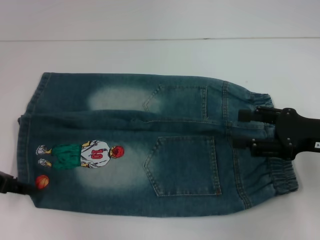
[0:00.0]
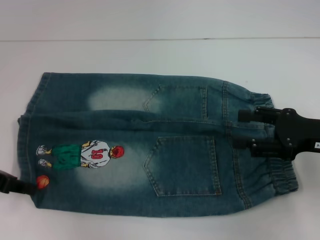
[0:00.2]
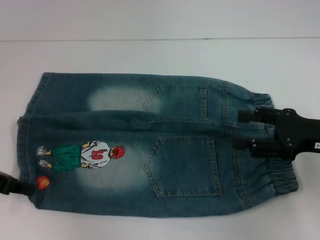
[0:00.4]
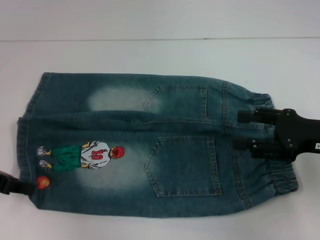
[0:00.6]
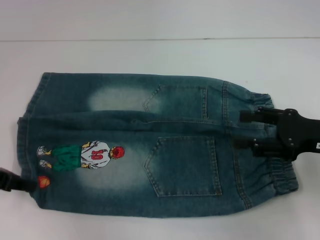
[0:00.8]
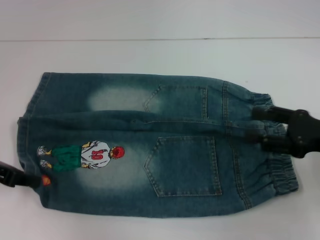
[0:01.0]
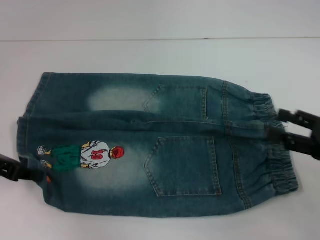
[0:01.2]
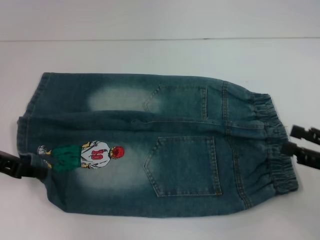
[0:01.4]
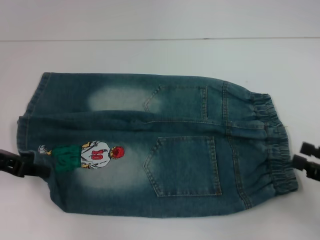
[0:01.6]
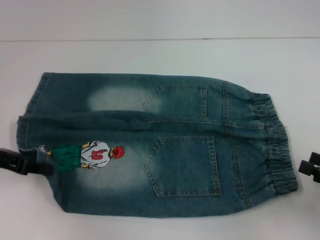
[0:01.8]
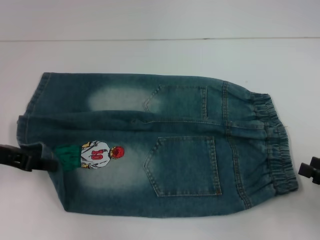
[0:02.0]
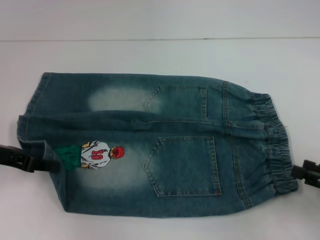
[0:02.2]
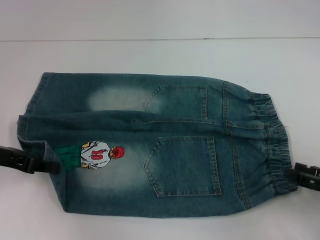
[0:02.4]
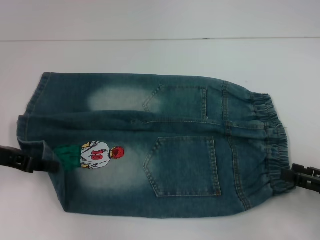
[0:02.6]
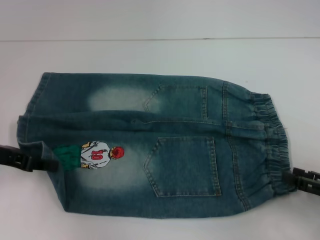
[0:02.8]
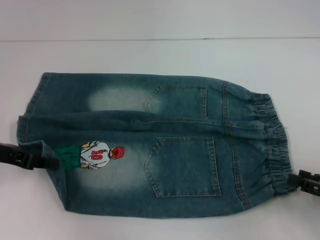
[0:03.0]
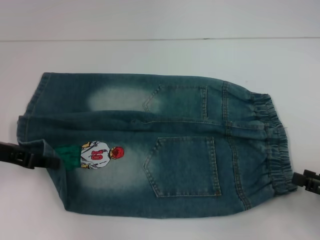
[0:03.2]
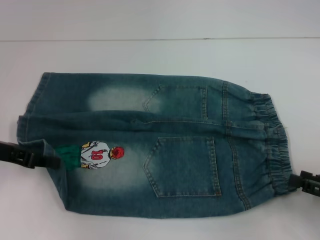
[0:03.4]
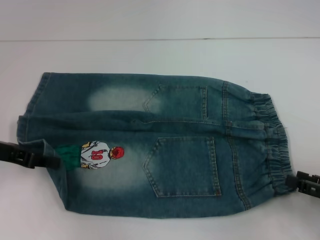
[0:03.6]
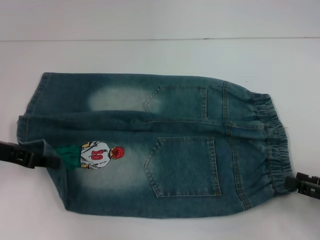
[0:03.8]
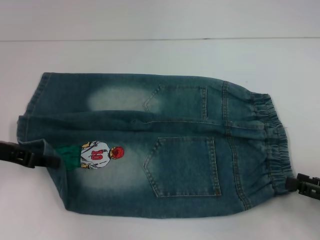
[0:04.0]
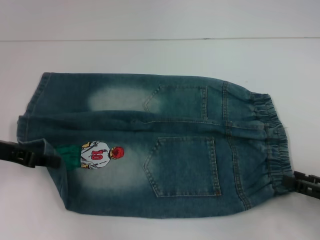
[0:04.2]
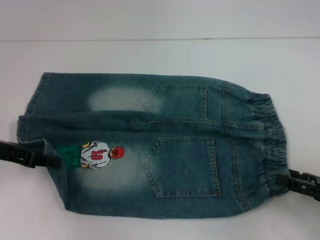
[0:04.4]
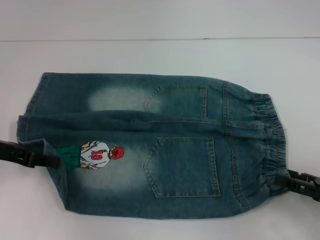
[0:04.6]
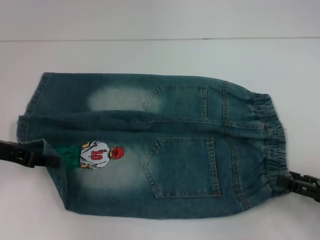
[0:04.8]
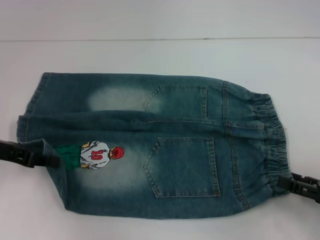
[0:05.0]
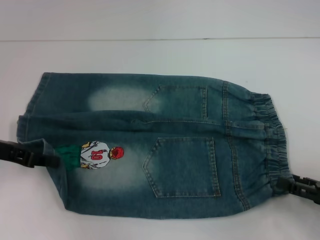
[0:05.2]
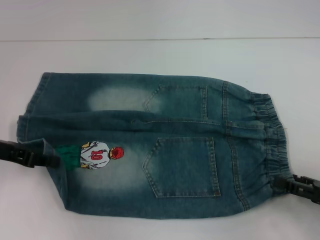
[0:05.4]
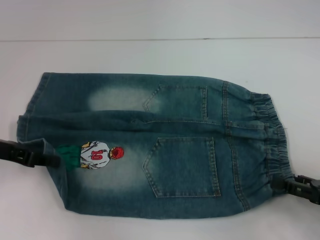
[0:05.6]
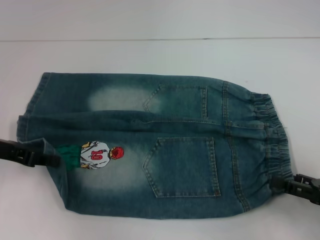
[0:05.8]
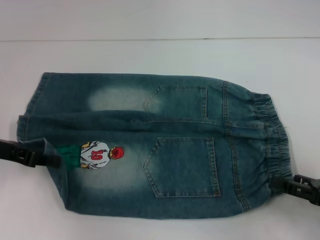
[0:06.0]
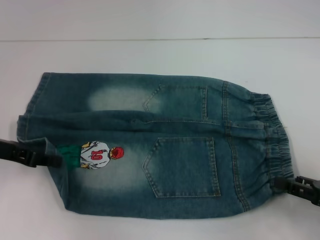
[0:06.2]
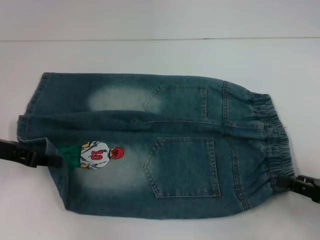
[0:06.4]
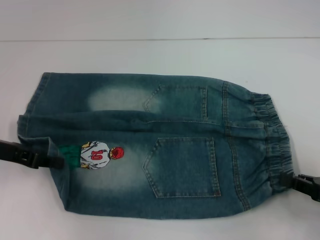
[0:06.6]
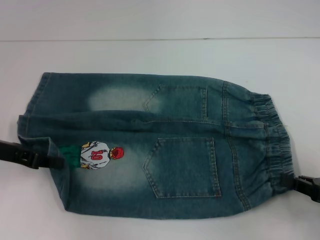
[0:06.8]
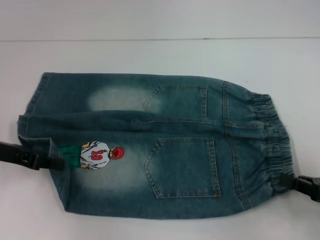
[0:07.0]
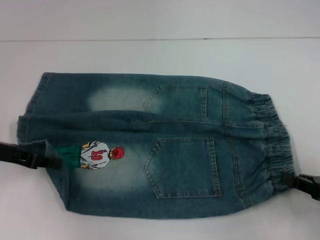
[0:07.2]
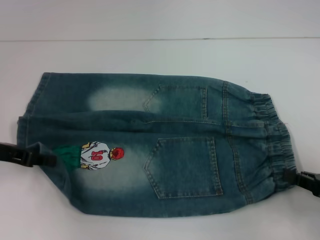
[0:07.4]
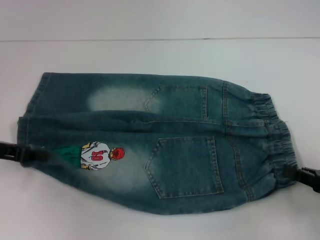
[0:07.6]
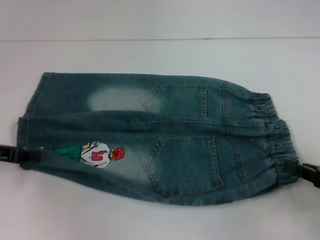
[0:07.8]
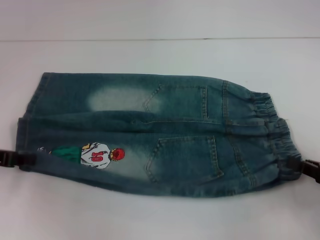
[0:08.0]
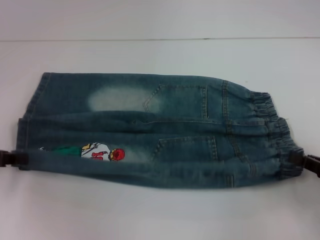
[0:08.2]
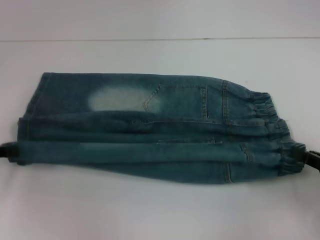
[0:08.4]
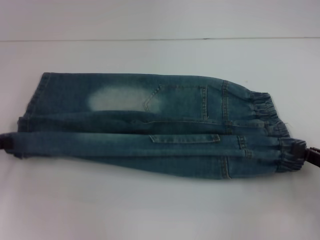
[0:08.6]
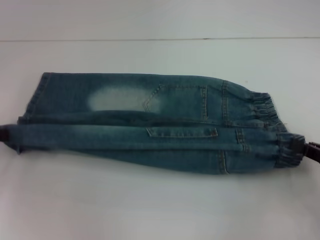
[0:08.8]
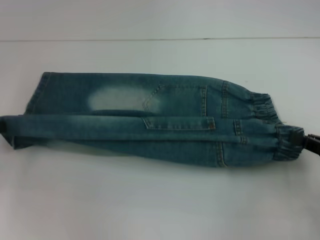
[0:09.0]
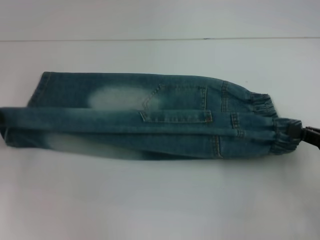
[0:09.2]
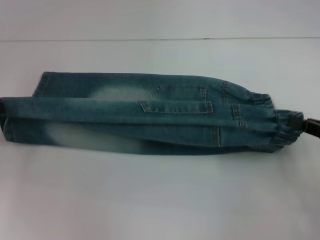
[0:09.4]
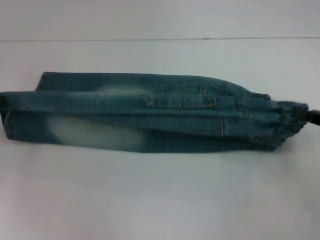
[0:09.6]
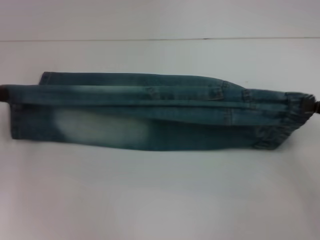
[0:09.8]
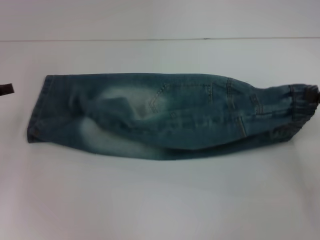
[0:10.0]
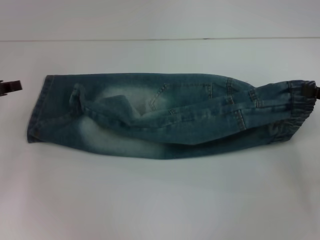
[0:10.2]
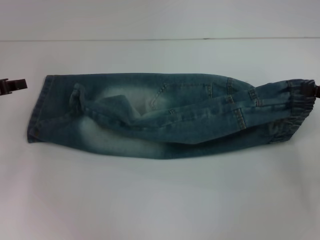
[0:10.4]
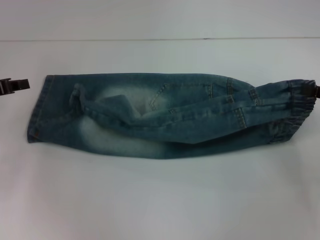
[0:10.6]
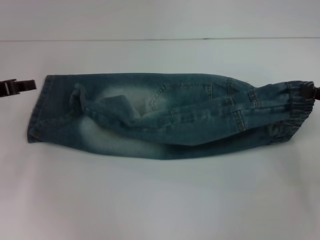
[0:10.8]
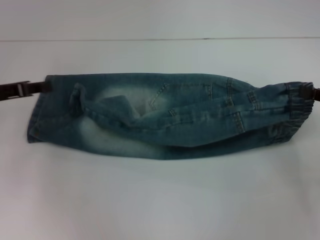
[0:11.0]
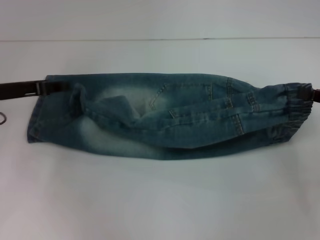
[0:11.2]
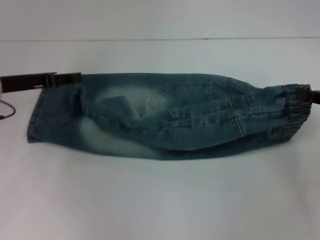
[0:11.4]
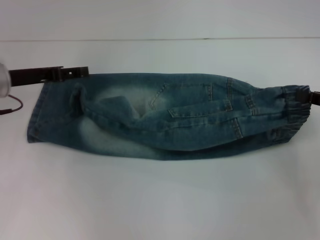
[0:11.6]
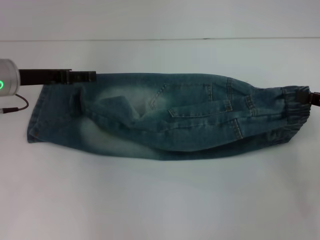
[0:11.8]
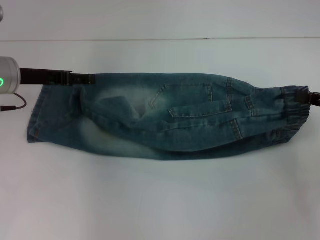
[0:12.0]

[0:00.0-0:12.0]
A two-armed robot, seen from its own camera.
Step, 0:00.0 to 0:07.4: Hold the lower right waistband with your right hand.
0:00.0 to 0:01.6: The left gripper closes. Meanwhile the right gripper moves backward and to the right, roughly 10 cm.
0:01.6 to 0:03.0: The grippers stay close to where they were, moving slightly.
0:03.0 to 0:04.4: Both grippers stay about where they are.
0:04.4 to 0:06.0: Neither gripper changes place.
0:06.0 to 0:07.6: The right gripper closes up.
0:07.6 to 0:09.0: The left gripper heads to the left, covering about 5 cm.
0:09.0 to 0:10.4: The grippers both shift forward by approximately 5 cm.
0:10.4 to 0:12.0: The left gripper goes approximately 10 cm to the right, and opens.

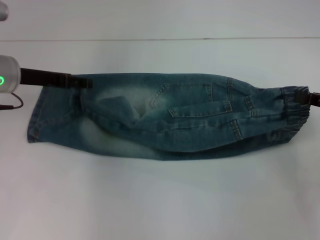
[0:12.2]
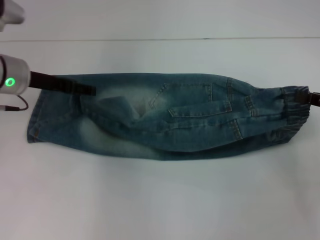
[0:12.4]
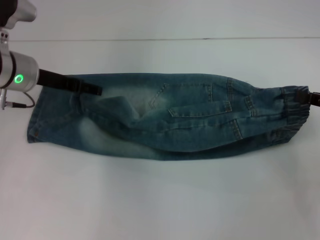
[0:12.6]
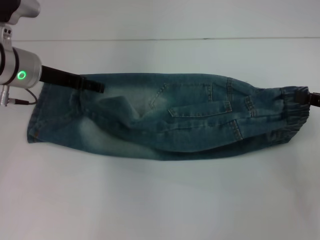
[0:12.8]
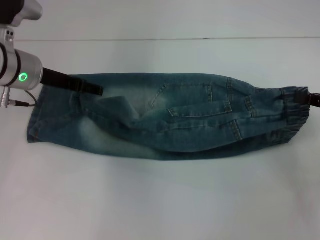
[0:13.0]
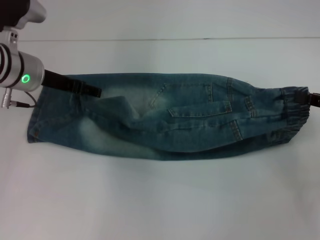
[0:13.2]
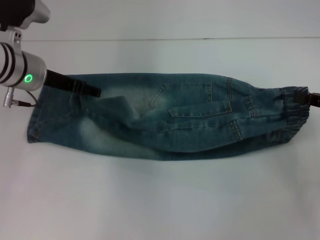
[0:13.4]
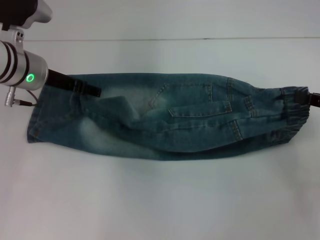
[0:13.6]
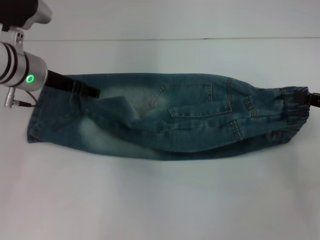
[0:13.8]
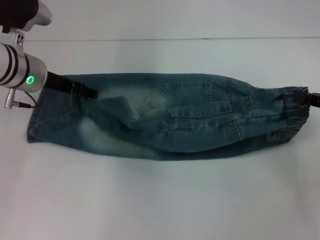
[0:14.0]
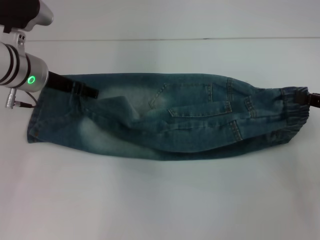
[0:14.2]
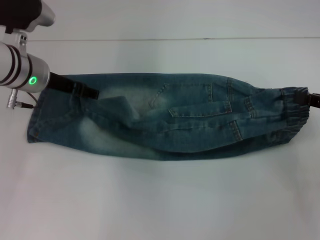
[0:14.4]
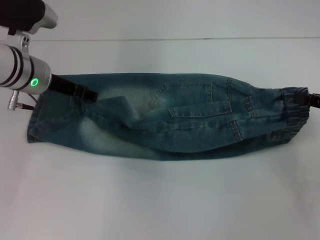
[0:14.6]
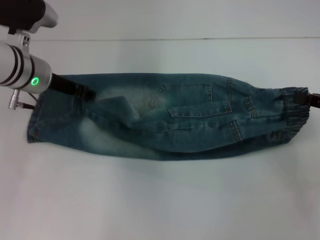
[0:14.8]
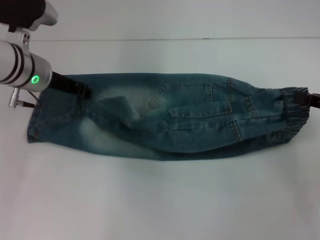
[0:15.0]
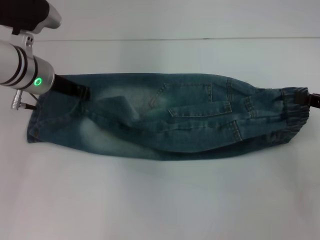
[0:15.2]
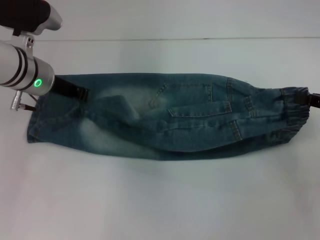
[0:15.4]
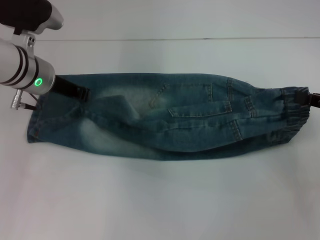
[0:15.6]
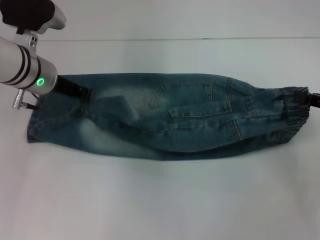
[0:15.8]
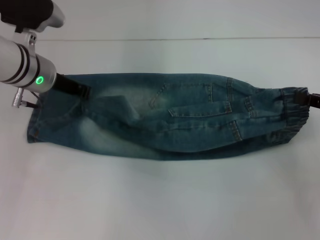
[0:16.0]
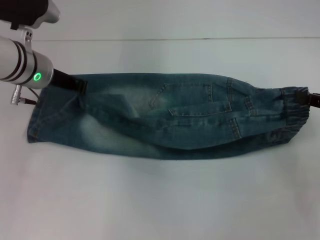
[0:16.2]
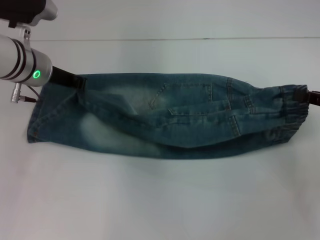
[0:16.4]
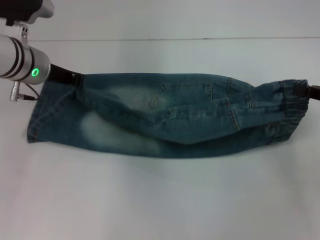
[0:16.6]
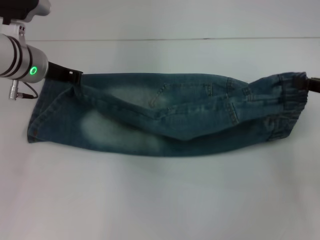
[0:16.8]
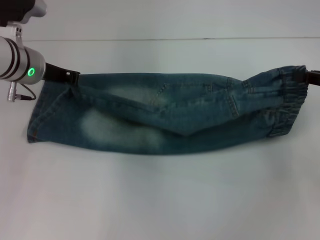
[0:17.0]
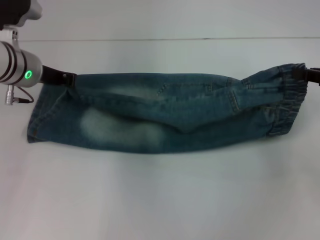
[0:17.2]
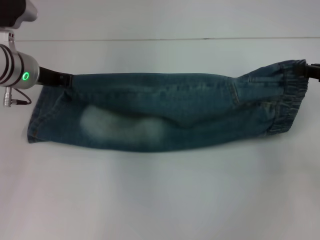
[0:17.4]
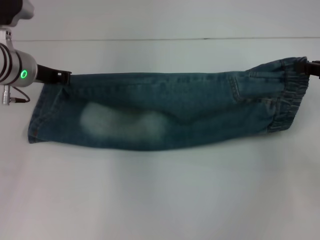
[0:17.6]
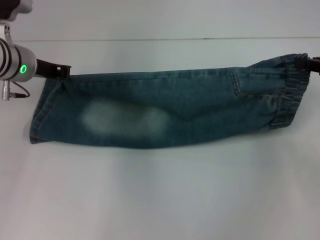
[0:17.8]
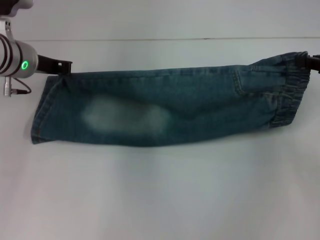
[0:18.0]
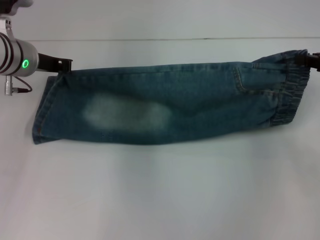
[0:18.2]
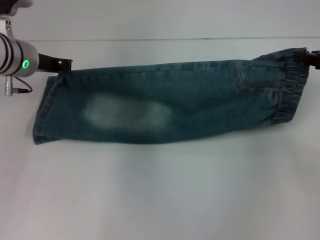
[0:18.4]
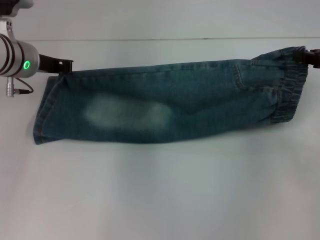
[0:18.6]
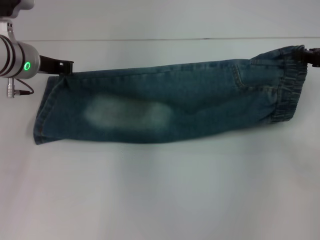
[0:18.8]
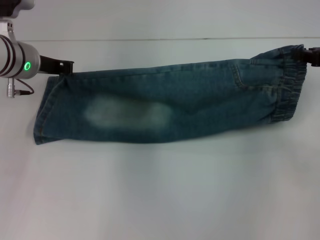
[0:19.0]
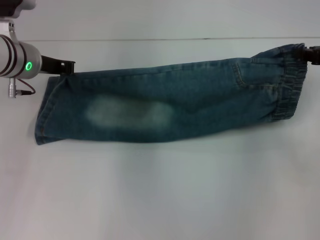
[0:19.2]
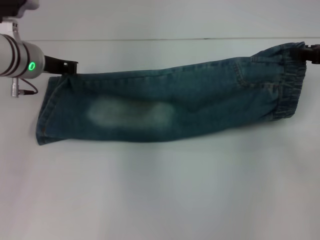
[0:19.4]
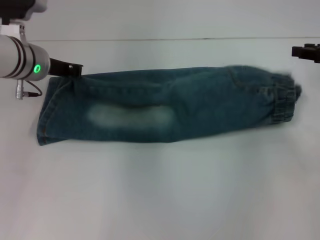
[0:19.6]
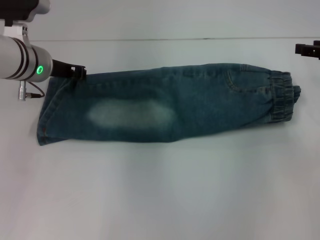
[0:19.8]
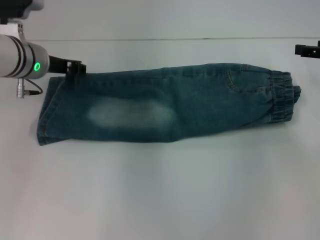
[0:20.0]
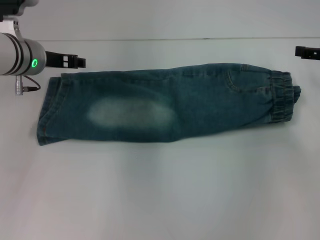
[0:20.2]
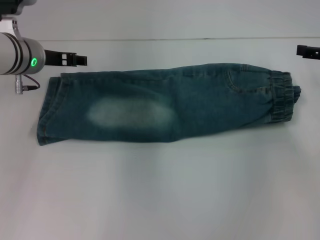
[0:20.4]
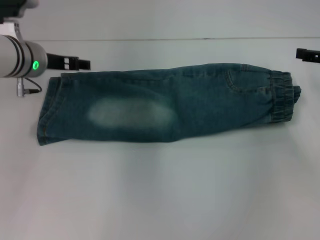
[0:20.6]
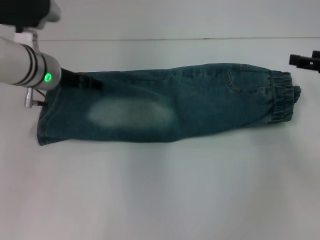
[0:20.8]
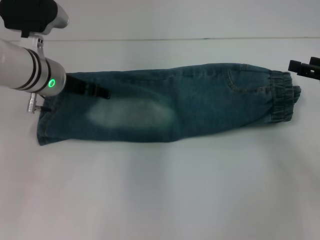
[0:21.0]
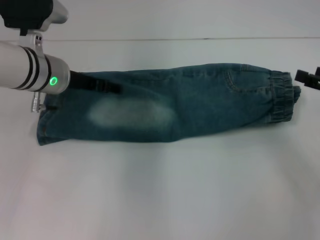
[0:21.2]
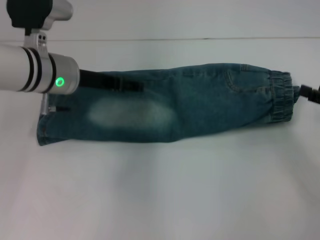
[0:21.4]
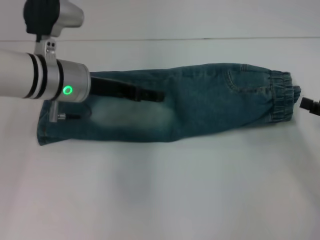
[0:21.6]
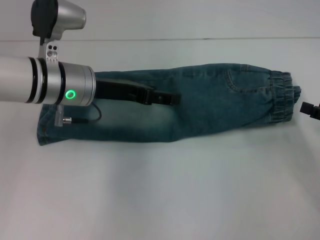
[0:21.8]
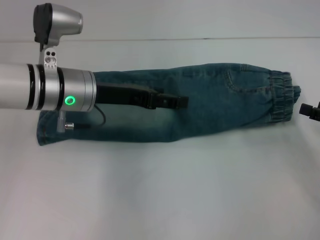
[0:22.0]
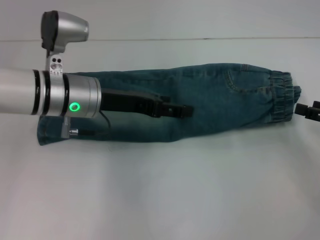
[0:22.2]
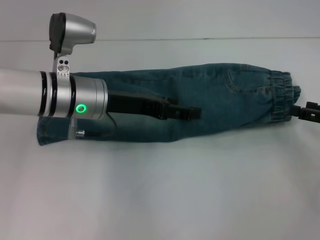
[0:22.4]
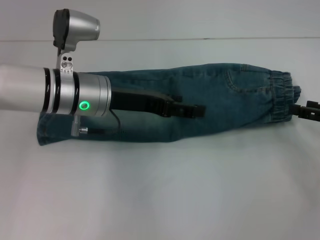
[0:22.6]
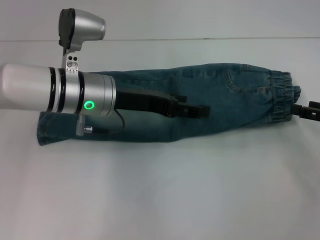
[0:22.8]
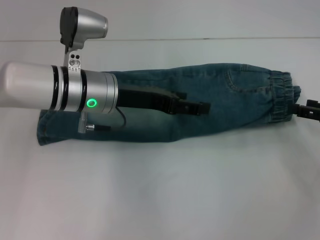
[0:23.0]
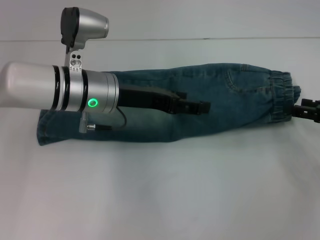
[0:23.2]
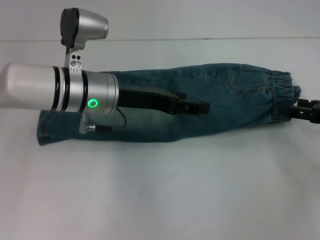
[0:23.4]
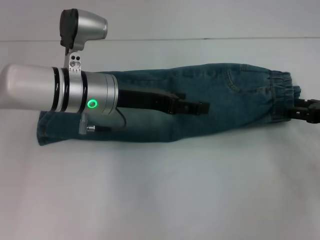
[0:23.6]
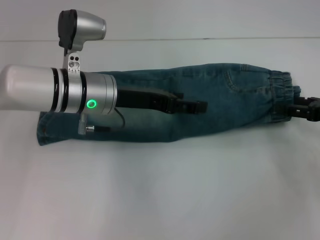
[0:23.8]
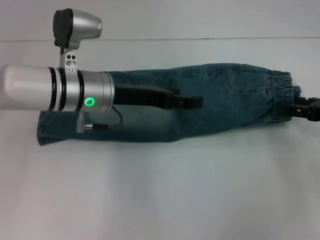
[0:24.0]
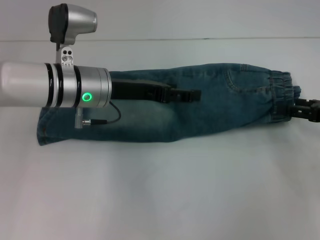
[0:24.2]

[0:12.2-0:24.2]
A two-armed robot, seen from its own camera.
Step, 0:12.2 to 0:19.4: Fold upward with your right hand.
Step, 0:19.8 to 0:20.2: Fold upward with your left hand.
0:12.2 to 0:13.8: There are only small adjustments of the grippers.
0:13.8 to 0:15.2: The left gripper closes.
0:15.2 to 0:16.6: The grippers stay close to where they were, moving slightly.
0:16.6 to 0:18.2: The right gripper heads forward, covering some 5 cm.
0:18.2 to 0:19.8: There are only small adjustments of the grippers.
0:19.8 to 0:21.2: The left gripper opens up. Meanwhile the right gripper shifts approximately 10 cm backward, and opens.
0:21.2 to 0:22.6: The left gripper shifts by roughly 5 cm.
0:22.6 to 0:24.2: There are only small adjustments of the grippers.
